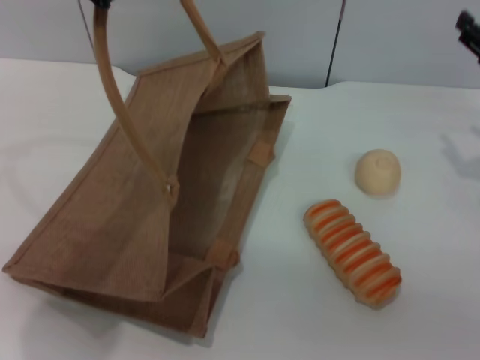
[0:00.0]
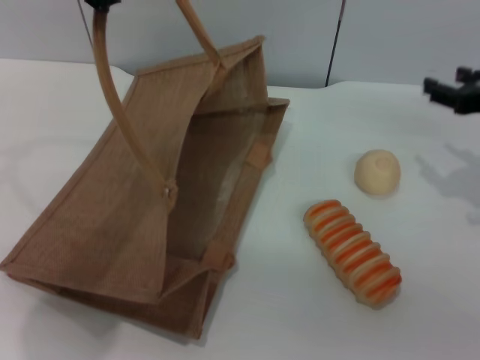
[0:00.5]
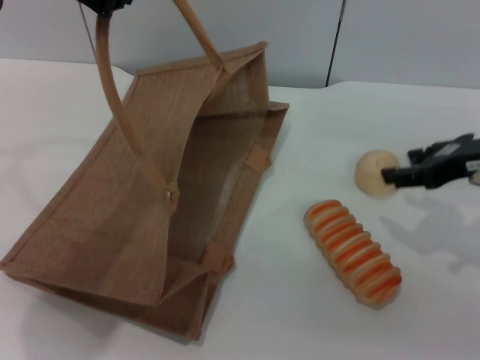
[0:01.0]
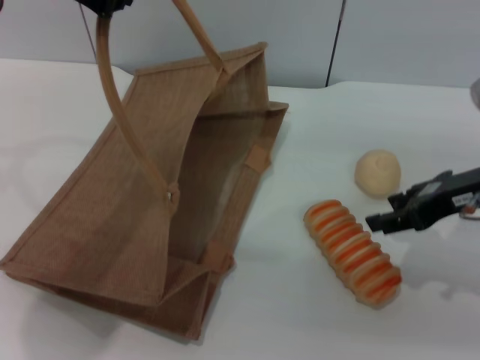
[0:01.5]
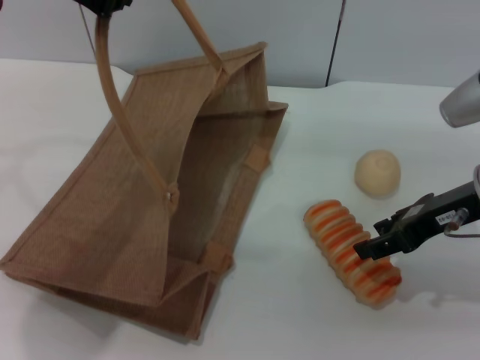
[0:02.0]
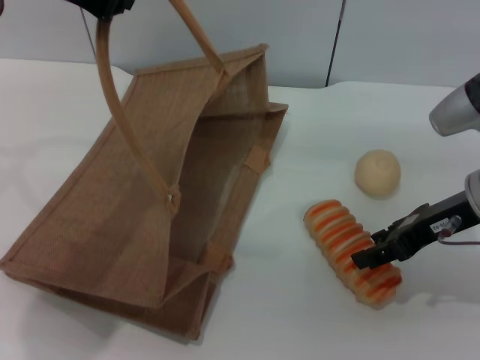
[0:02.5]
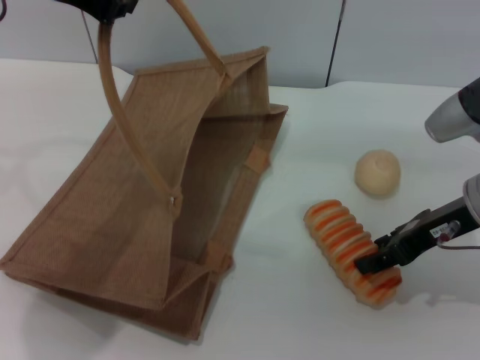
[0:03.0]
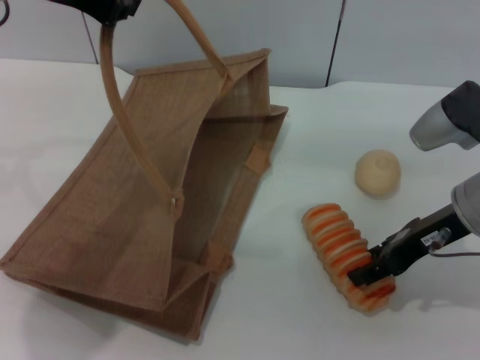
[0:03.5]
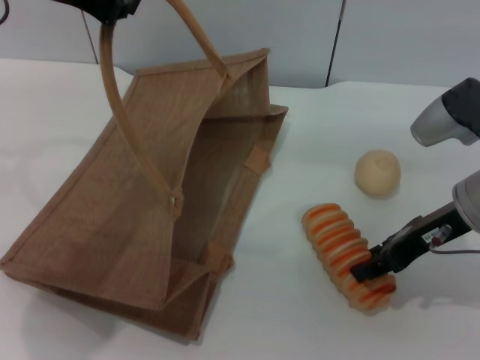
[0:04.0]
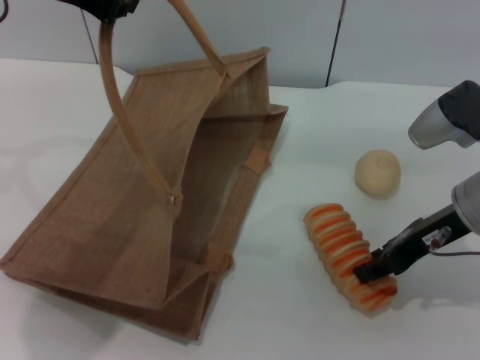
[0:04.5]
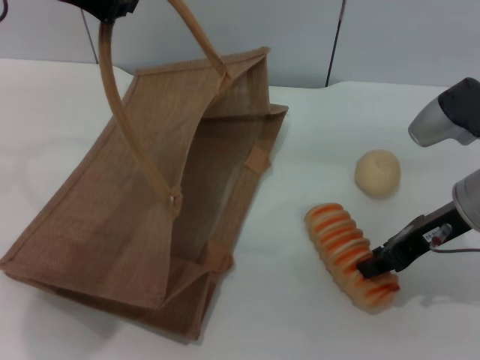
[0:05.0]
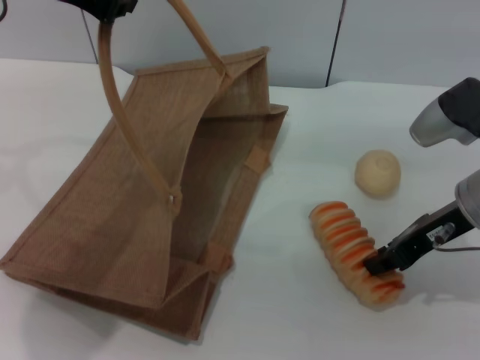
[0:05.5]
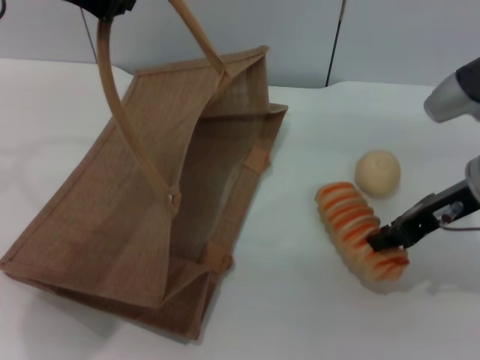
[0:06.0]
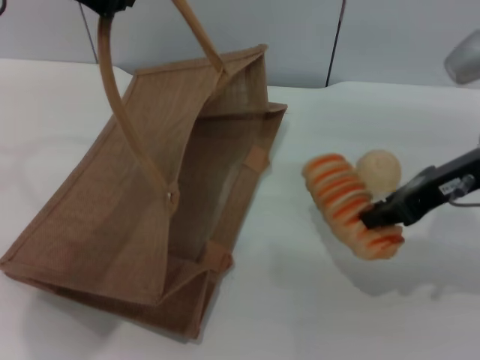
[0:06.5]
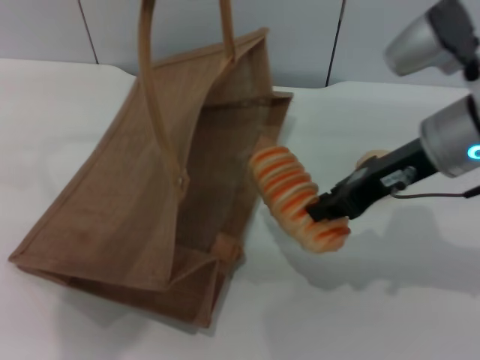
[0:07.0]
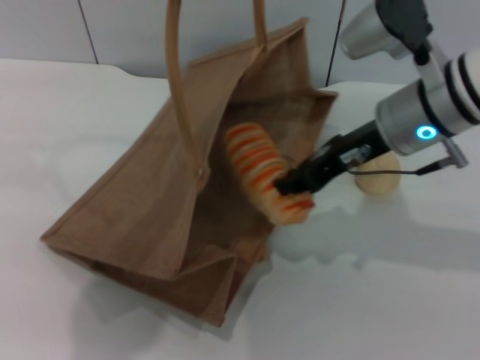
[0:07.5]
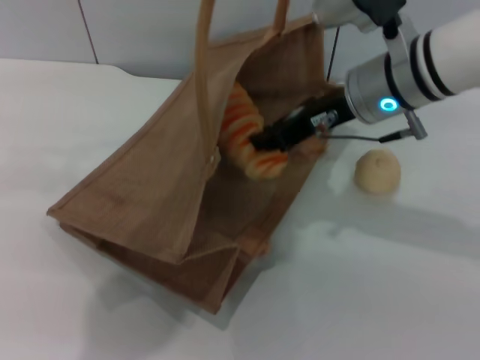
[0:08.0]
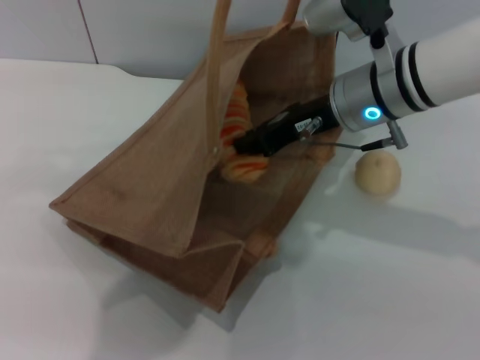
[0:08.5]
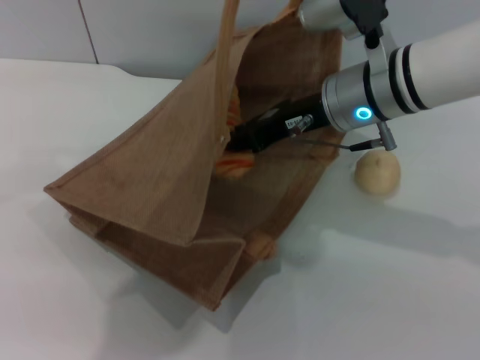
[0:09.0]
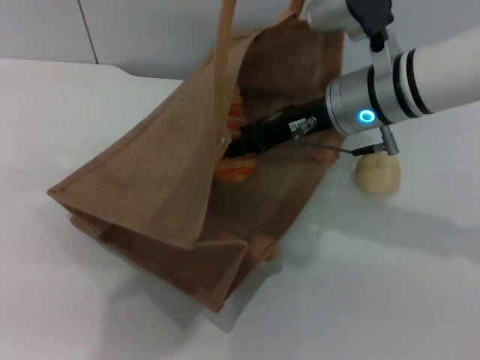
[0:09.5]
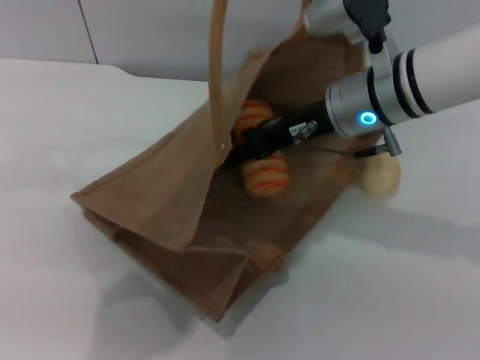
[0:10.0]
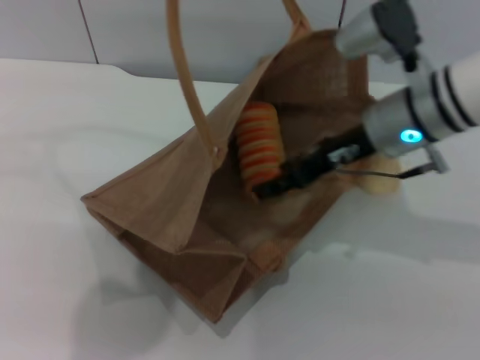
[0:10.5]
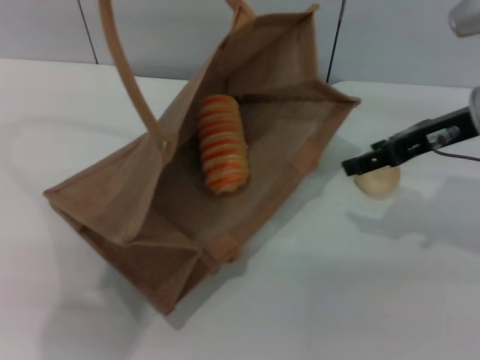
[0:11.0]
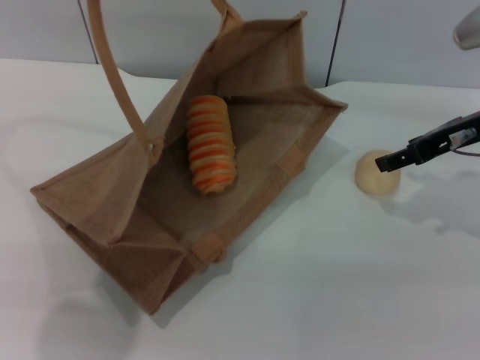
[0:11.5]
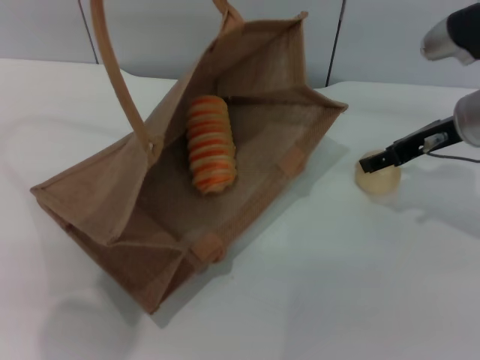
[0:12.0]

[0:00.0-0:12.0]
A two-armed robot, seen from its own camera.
Task of the whole recording: pick up the bread and egg yolk pastry from the table and place it in the brown handbag.
Step, 0:00.0 to 0:06.5: Pick up the bread with the right gripper.
Step, 0:07.0 to 0:10.5: Place the bread into the woven bag with the right gripper.
0:00.0 to 0:02.0: The right gripper shifts approximately 10 cm to the left.
0:02.0 to 0:04.0: The grippers move only a little.
0:04.0 to 0:06.0: The right gripper closes.
0:06.0 to 0:08.0: The right gripper travels to the left and forward by roughly 10 cm. The left gripper travels to the right by approximately 10 cm.
0:08.0 to 0:10.0: The right gripper opens.
0:10.0 to 0:12.0: The right gripper heads to the right, covering about 10 cm. The left gripper is displaced to the left by approximately 10 cm.

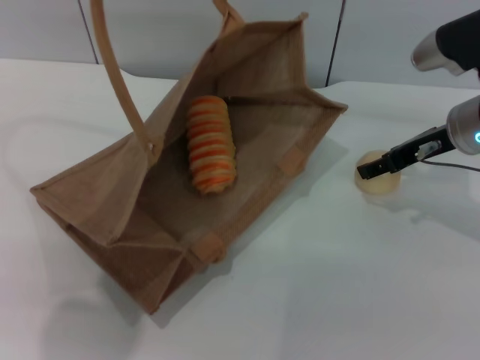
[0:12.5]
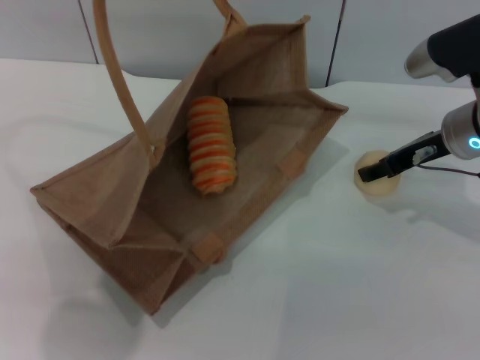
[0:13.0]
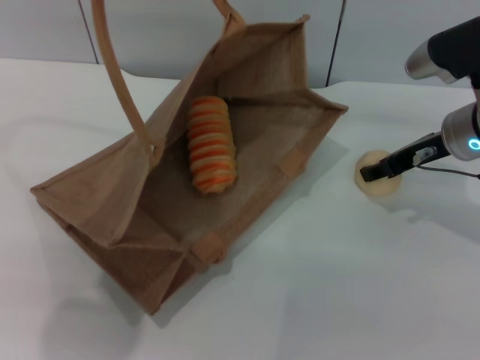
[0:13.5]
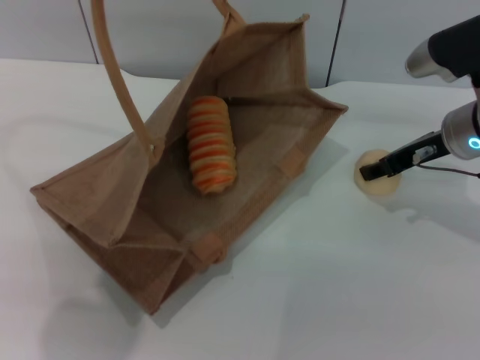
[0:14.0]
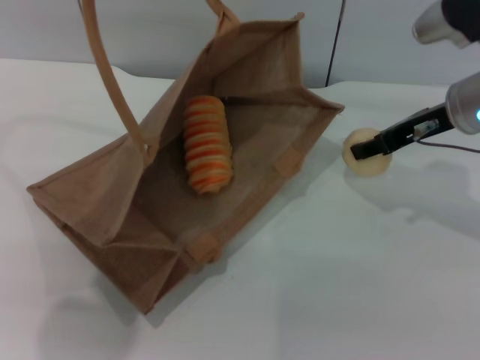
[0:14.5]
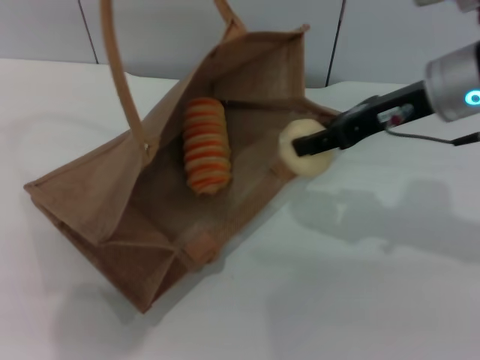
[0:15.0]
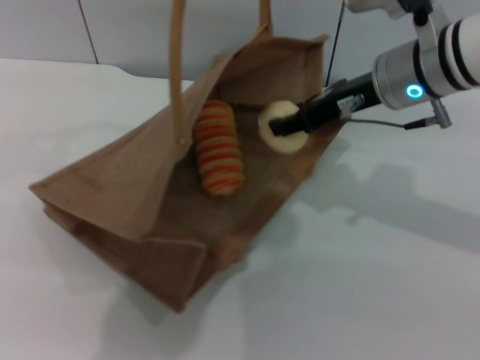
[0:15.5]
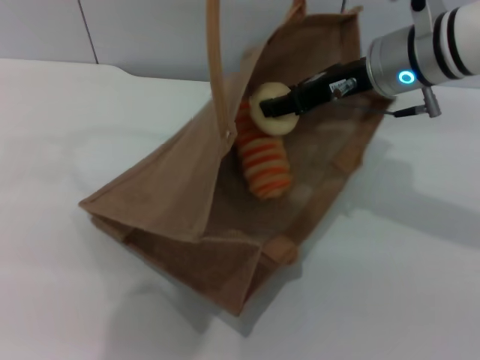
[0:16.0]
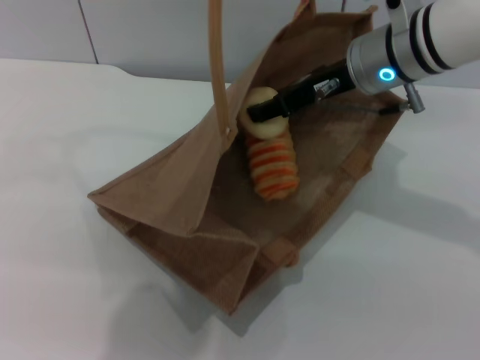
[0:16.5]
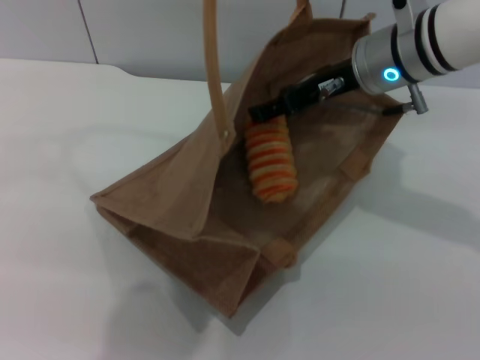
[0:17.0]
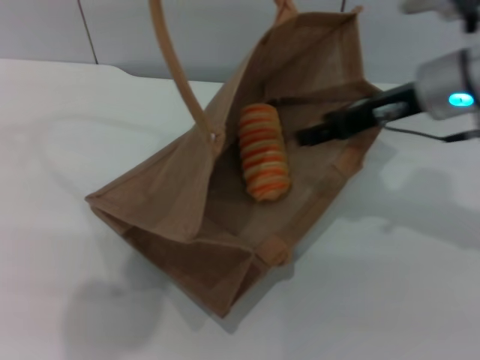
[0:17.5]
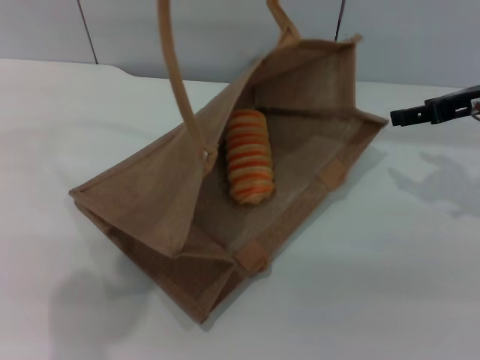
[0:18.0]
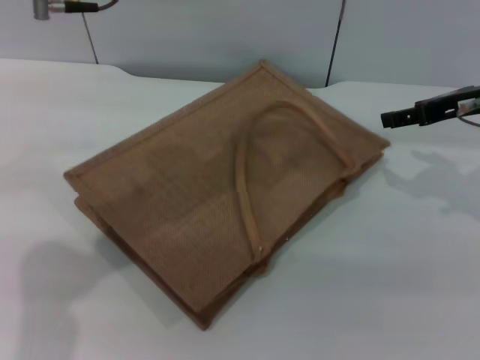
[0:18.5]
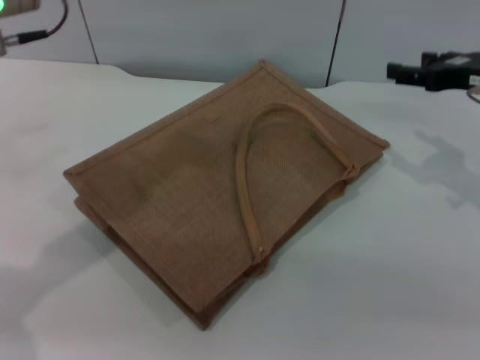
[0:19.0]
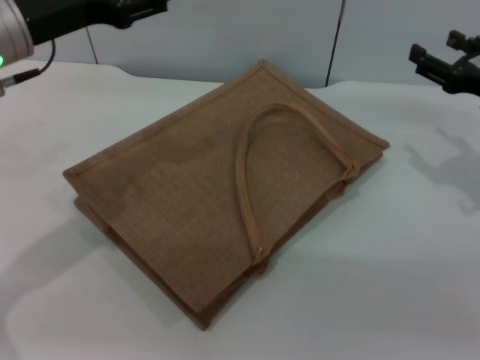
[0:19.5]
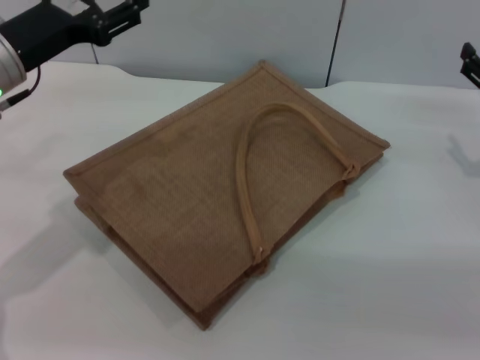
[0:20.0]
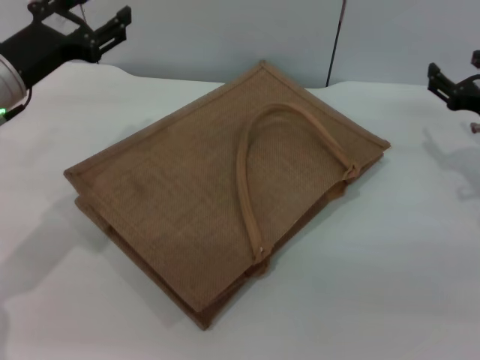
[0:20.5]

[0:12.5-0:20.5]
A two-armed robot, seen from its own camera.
Task of the whole recording: pick up the bread and egg yolk pastry from the table and place it in the brown handbag.
Step, 0:12.5 to 0:14.5: Pick up the egg yolk pastry with the right gripper.
Step, 0:15.0 to 0:17.5: Place the egg yolk pastry into the woven bag with the right gripper.
Step, 0:18.0 to 0:18.5: Lower the woven bag with the left gripper to close it.
0:12.5 to 0:14.5: The right gripper closes.
0:14.5 to 0:16.5: The left gripper goes approximately 10 cm to the right. Meanwhile the right gripper shifts roughly 10 cm to the left.
0:16.5 to 0:18.5: The left gripper moves downward and to the left, about 10 cm, and opens its fingers. Meanwhile the right gripper moves to the right, some 15 cm.
0:18.5 to 0:20.5: The left gripper moves downward and to the left, about 20 cm, and opens. The right gripper moves downward, approximately 10 cm.
